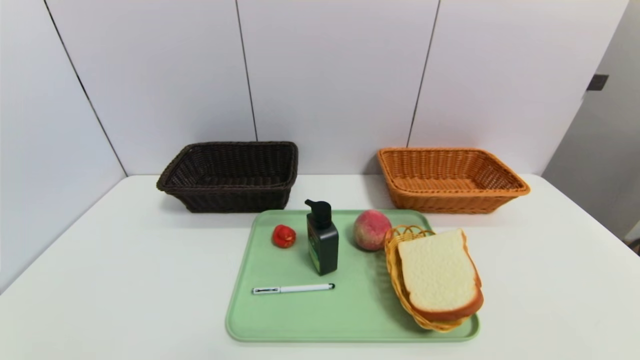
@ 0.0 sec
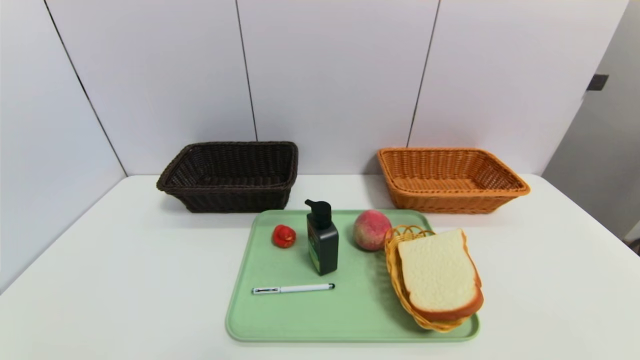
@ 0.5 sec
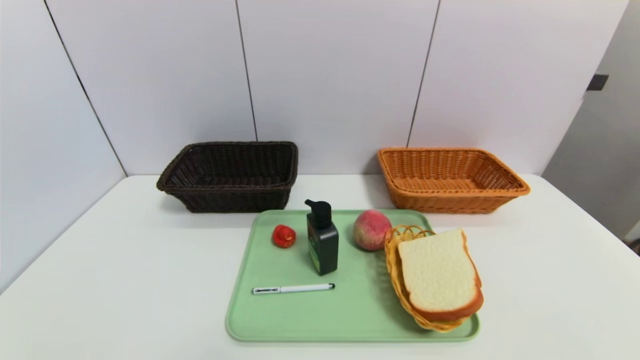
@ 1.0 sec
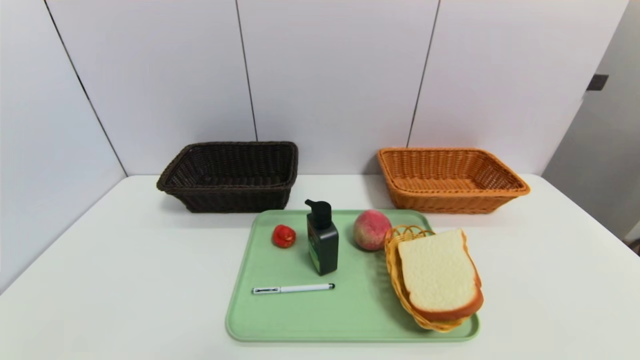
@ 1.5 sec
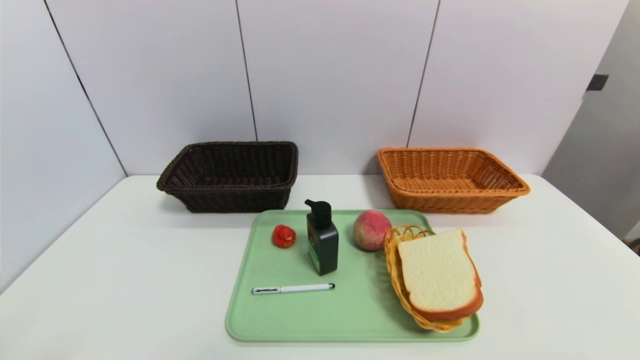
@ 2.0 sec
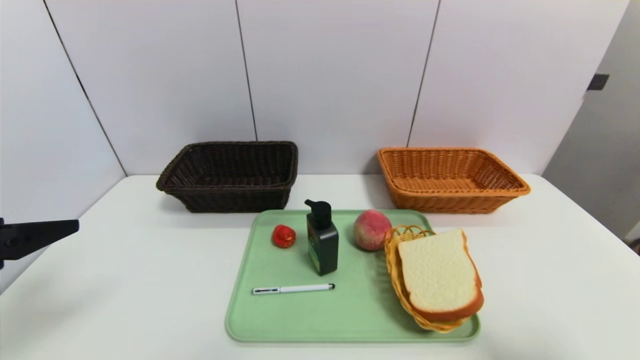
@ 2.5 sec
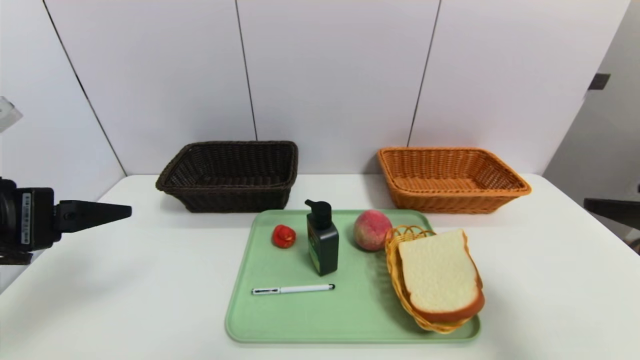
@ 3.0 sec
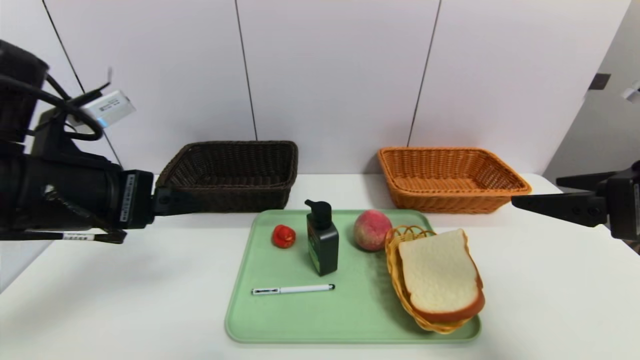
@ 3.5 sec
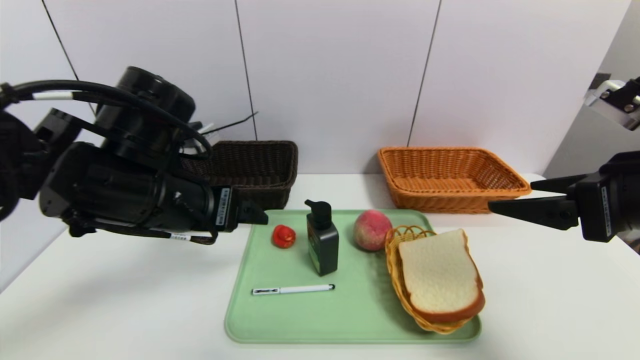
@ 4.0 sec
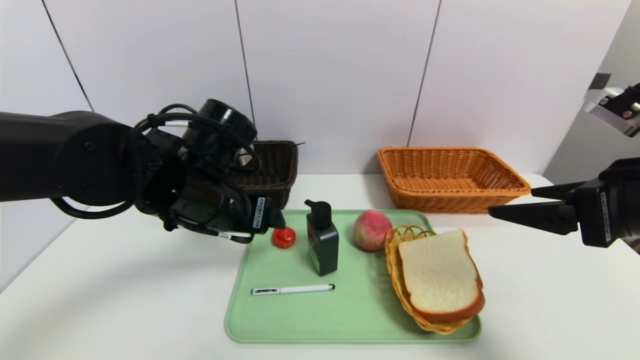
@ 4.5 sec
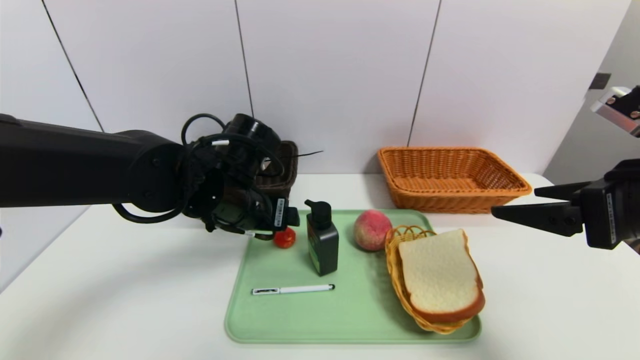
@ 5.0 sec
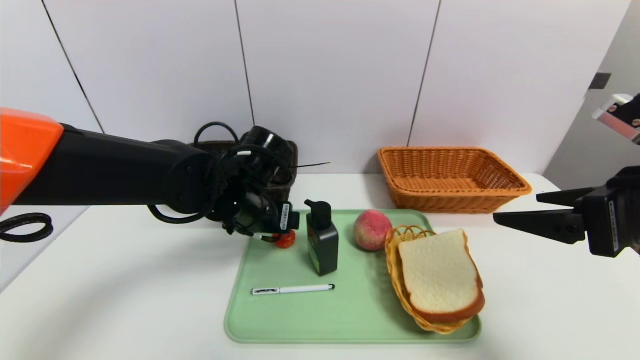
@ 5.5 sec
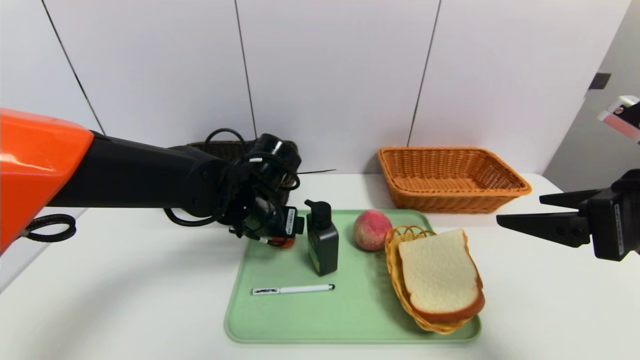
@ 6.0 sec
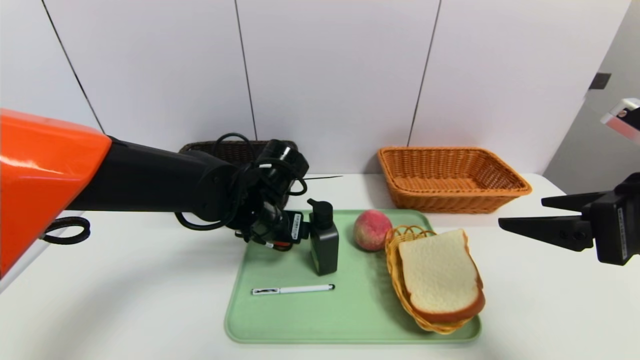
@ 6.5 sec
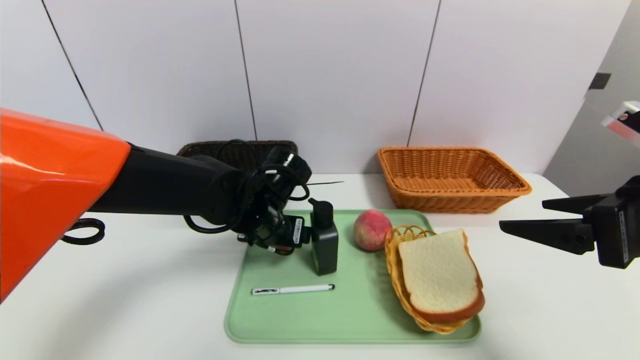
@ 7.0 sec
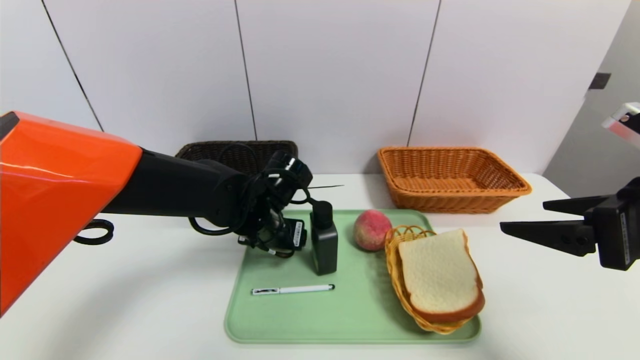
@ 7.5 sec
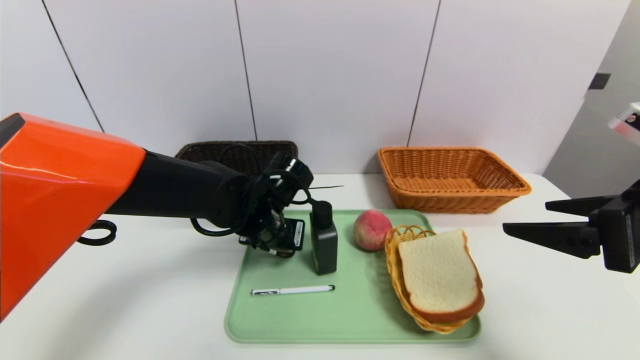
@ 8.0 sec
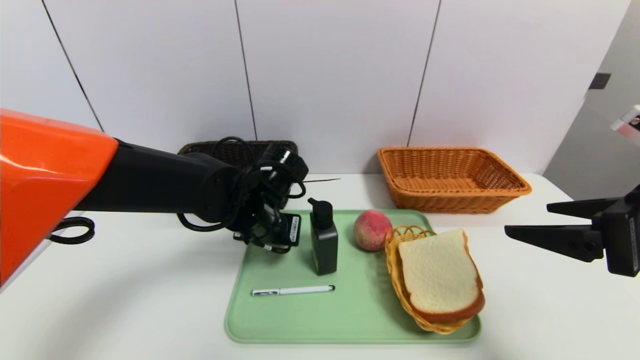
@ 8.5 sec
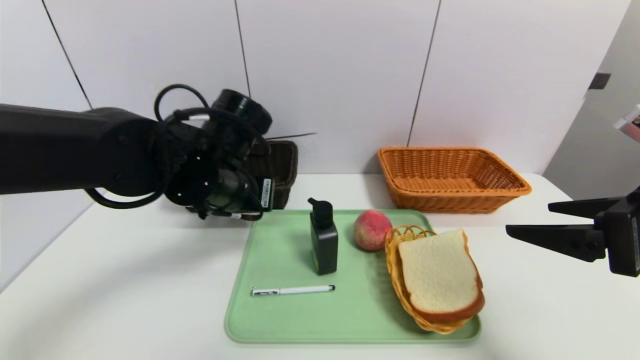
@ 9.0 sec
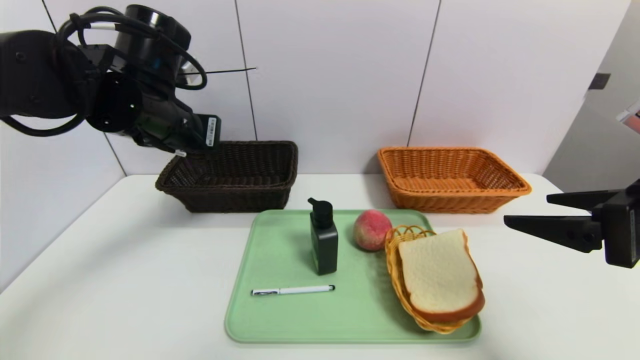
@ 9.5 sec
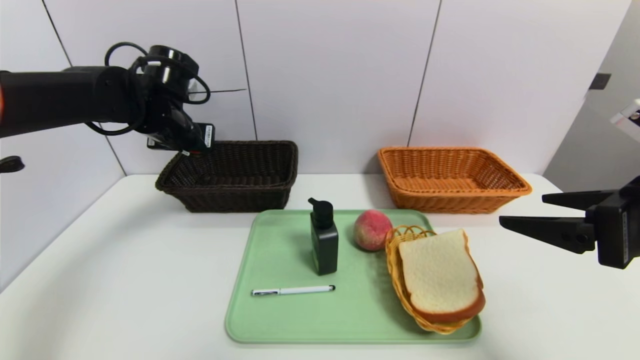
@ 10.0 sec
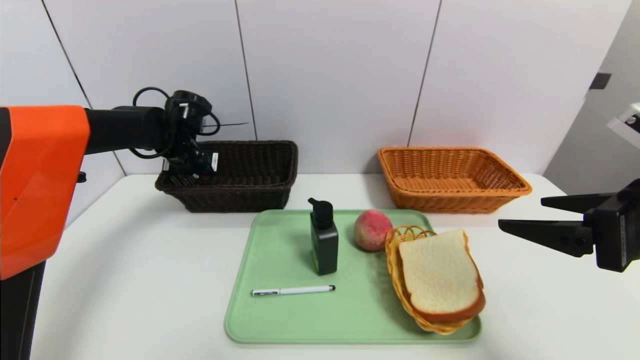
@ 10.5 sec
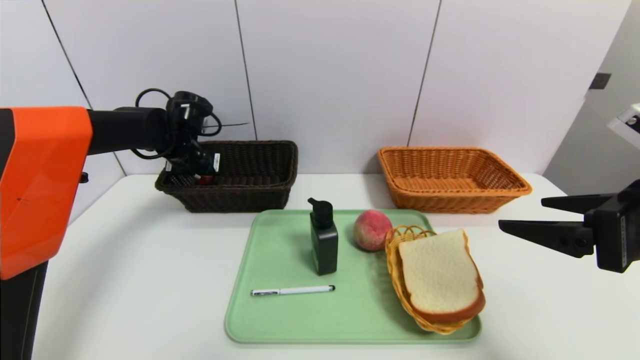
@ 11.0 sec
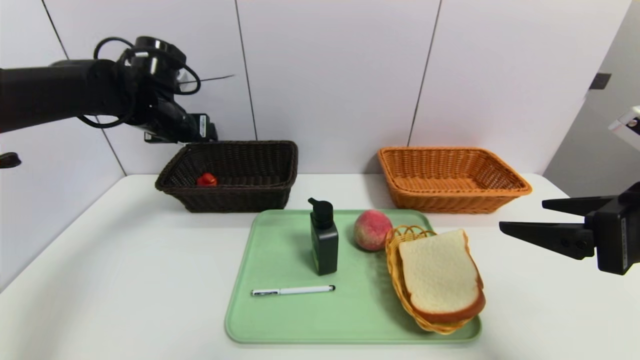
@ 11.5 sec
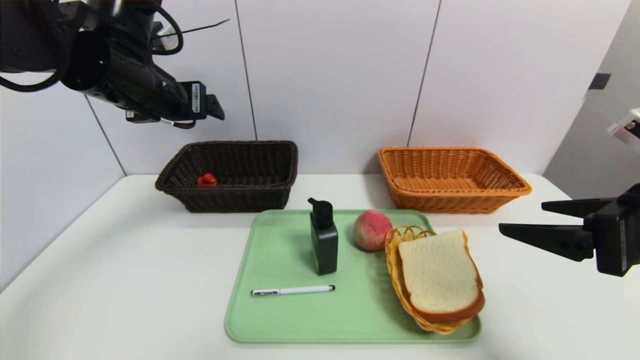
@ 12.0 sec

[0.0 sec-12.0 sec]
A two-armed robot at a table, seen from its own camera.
Task of the whole recording: place the food in the right basket with the right gripper, and place the non food items in the left basket with the left gripper.
Step, 0.0 sec to 11.0 sec: Grasp the red duck and put it in the left basket.
2.0 sec to 4.0 sec: The right gripper heads forward, covering about 20 cm; the left gripper goes roughly 25 cm forward and to the right.
4.0 sec to 6.0 sec: The left gripper shifts about 15 cm downward, forward and to the right.
6.0 sec to 8.0 sec: The left gripper closes its fingers.
8.0 sec to 10.0 sec: The left gripper moves to the left, upward and forward, about 20 cm.
10.0 sec to 12.0 sec: The left gripper shifts roughly 10 cm backward and upward, and opens.

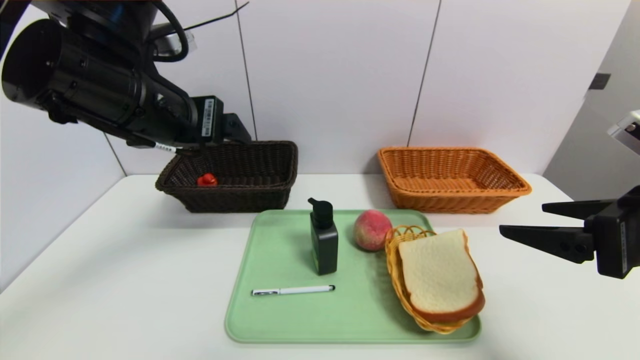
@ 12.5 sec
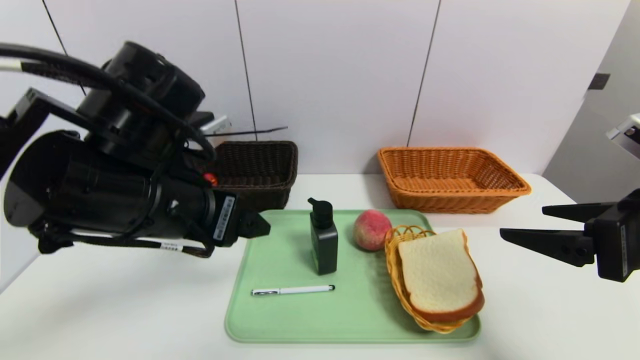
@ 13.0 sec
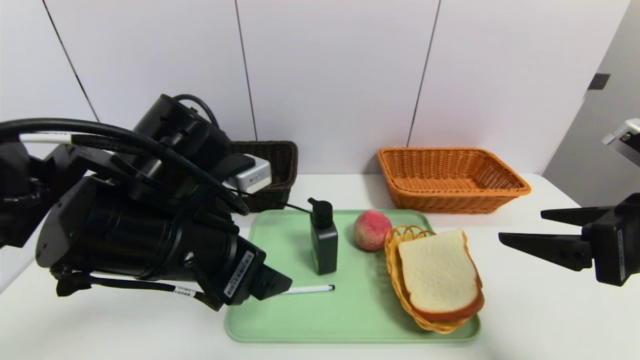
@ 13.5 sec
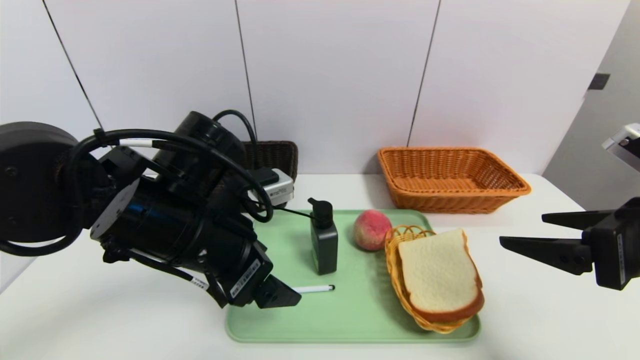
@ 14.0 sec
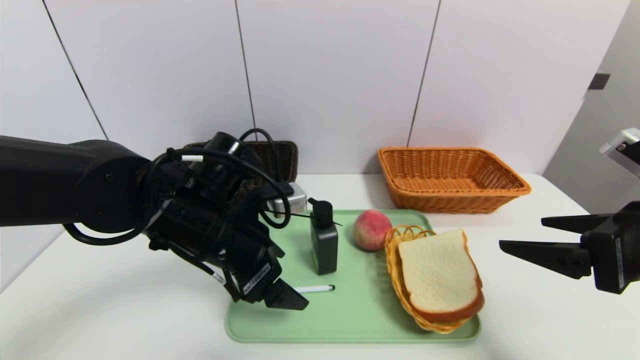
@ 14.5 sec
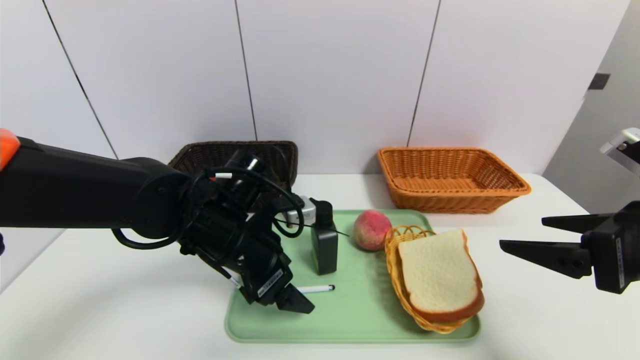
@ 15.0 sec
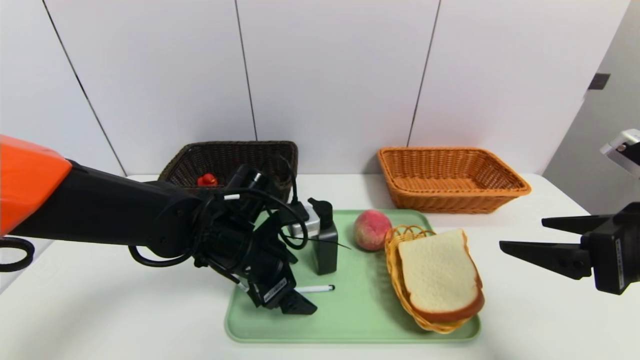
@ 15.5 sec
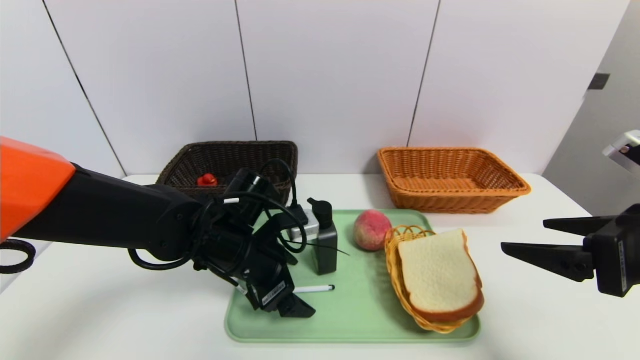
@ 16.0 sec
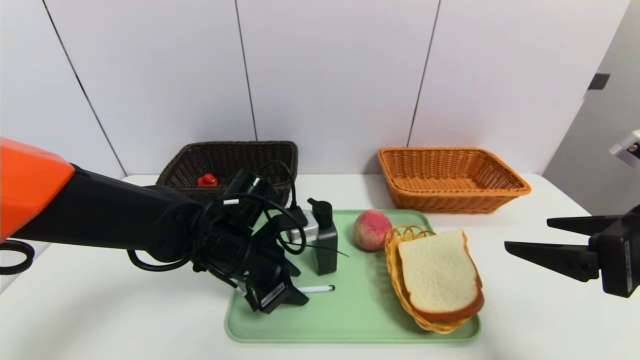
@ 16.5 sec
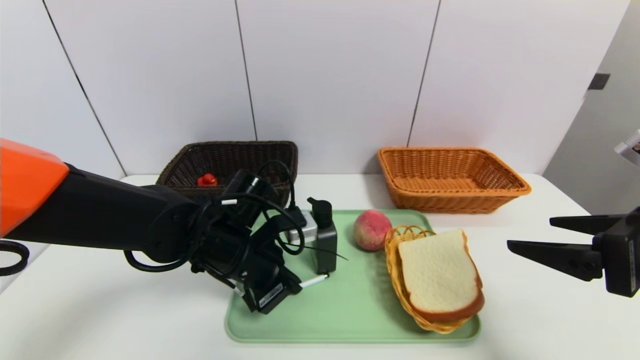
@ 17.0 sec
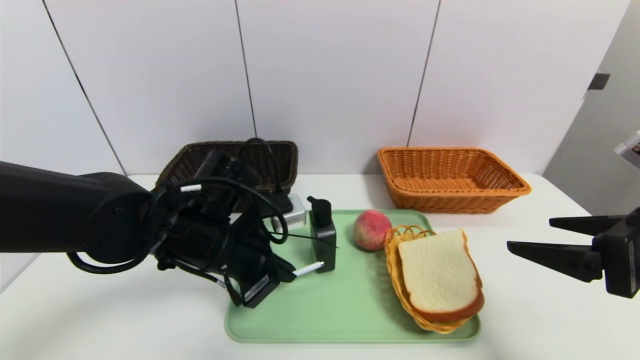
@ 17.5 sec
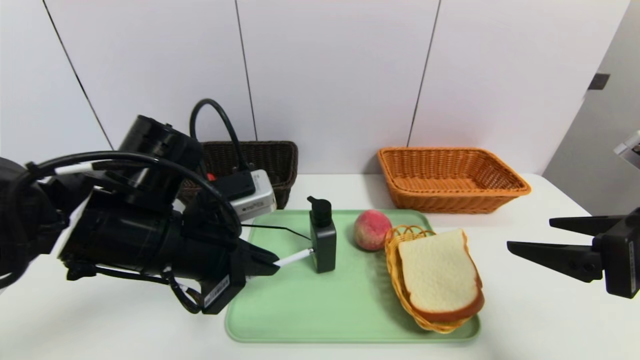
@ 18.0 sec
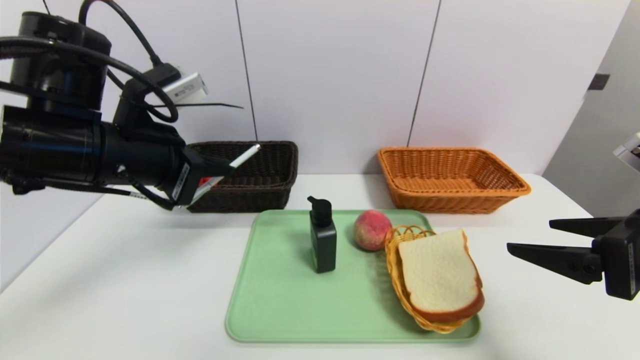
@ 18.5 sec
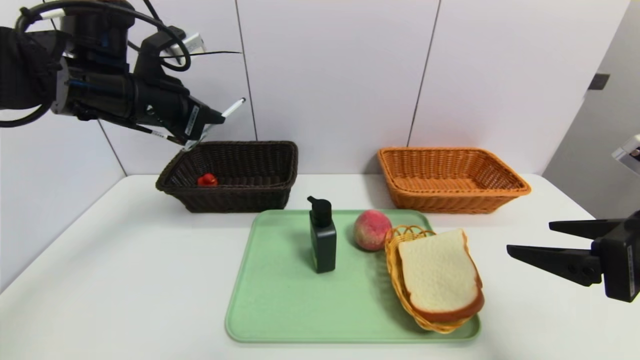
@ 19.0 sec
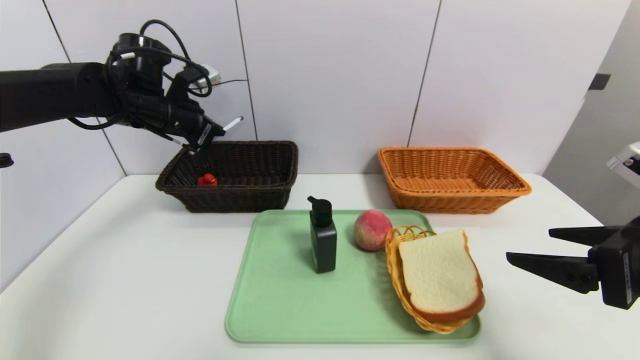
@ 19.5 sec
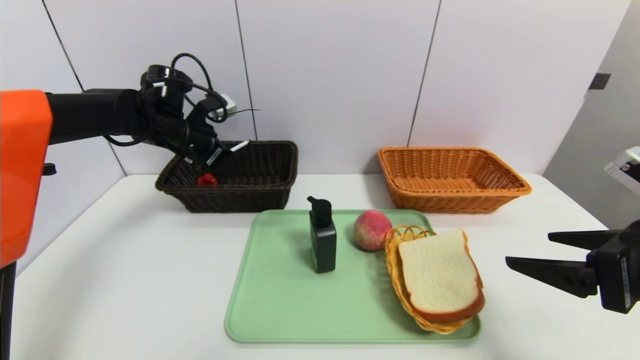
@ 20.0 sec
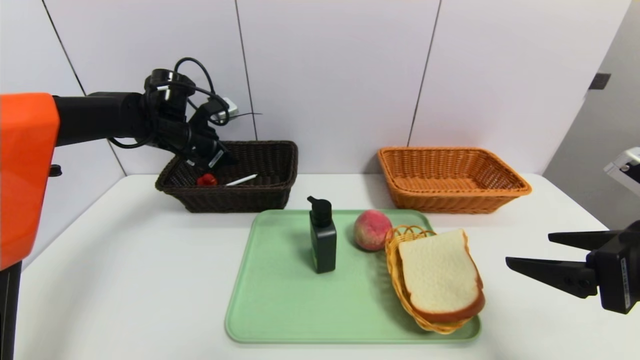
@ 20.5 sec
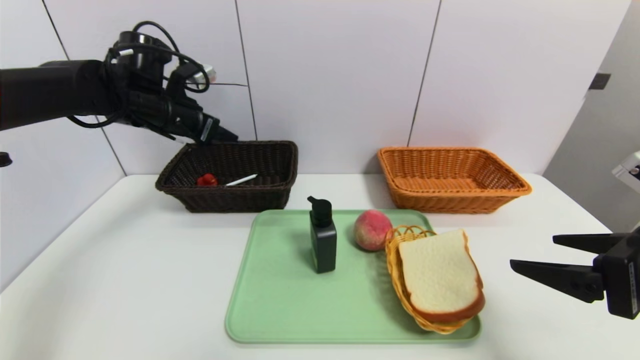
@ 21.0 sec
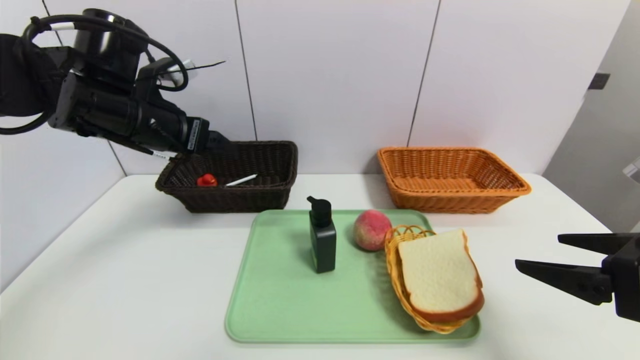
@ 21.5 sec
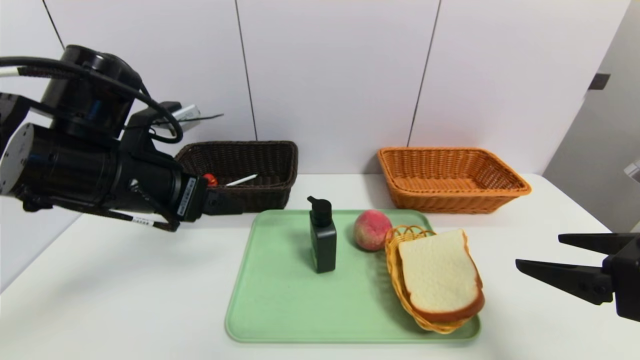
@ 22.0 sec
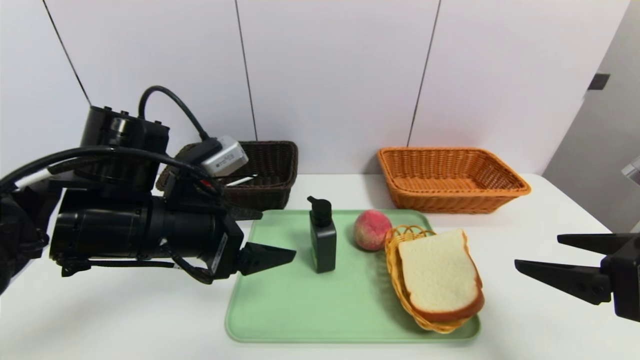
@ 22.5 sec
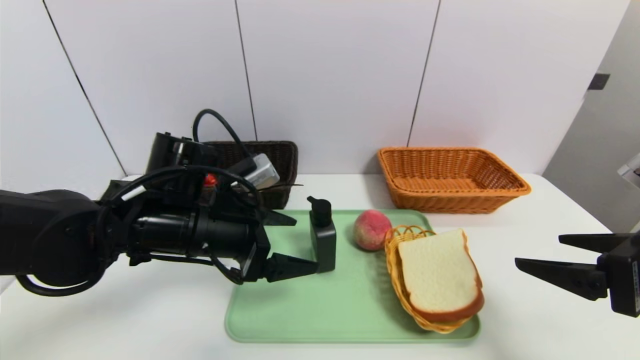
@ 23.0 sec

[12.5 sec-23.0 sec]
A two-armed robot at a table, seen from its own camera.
Task of the whole recording: place the food in the right basket with the right gripper, and place the non food items in the left basket with the left gripper.
Step, 12.5 sec to 20.5 sec: Grasp the ballpoint pen and put it in the left basket.
12.5 sec to 14.5 sec: The left gripper heads downward, covering roughly 15 cm.
14.5 sec to 16.5 sec: The left gripper goes about 5 cm downward, and closes its fingers.
16.5 sec to 19.0 sec: The left gripper shifts approximately 20 cm upward and to the left, and closes its fingers.
19.0 sec to 21.0 sec: The left gripper shifts roughly 10 cm forward, and opens its fingers.
21.0 sec to 23.0 sec: The left gripper is displaced backward, to the right and downward by roughly 20 cm.
